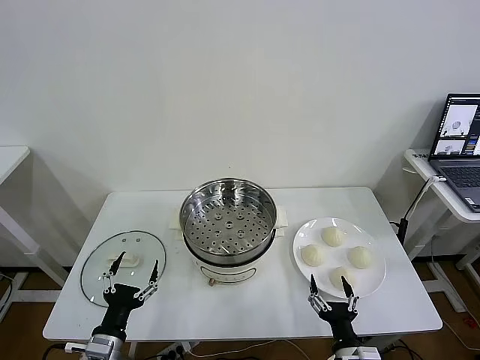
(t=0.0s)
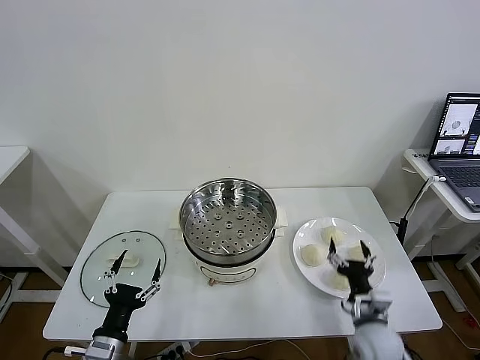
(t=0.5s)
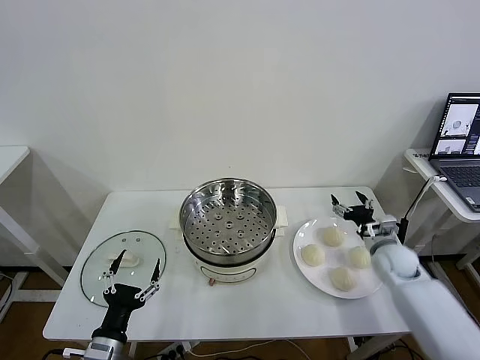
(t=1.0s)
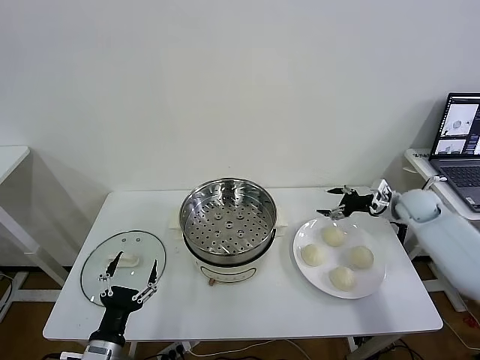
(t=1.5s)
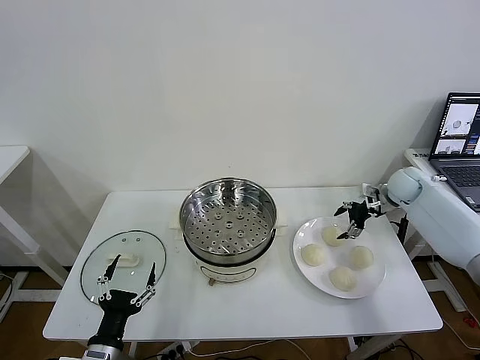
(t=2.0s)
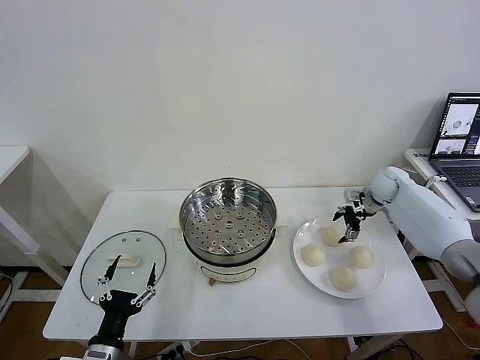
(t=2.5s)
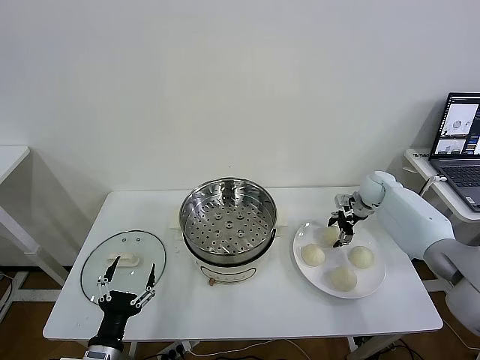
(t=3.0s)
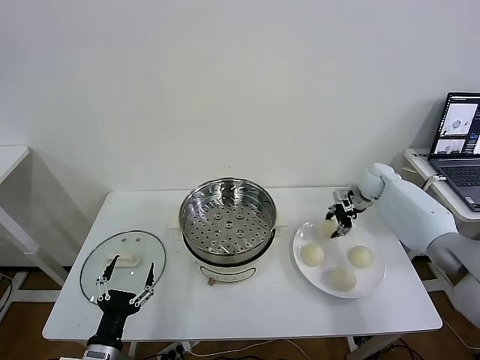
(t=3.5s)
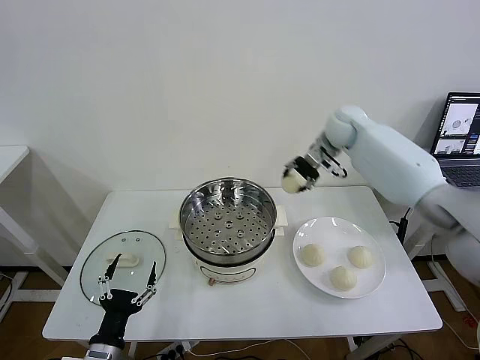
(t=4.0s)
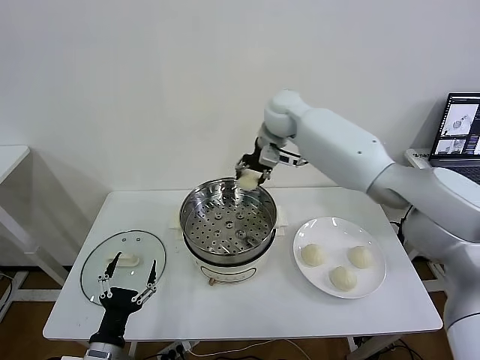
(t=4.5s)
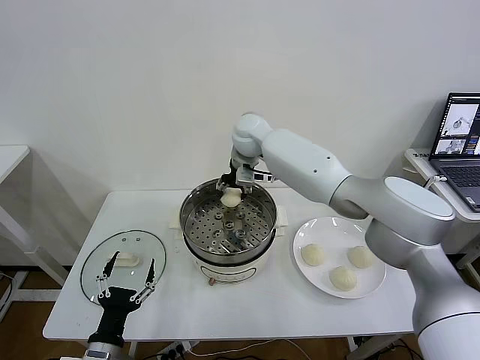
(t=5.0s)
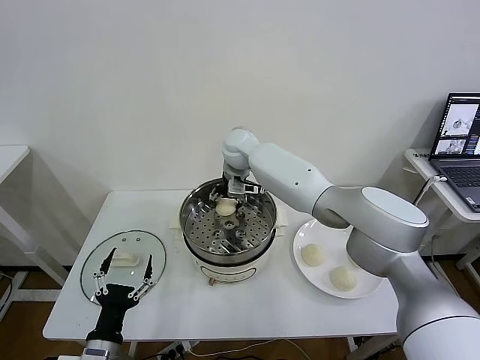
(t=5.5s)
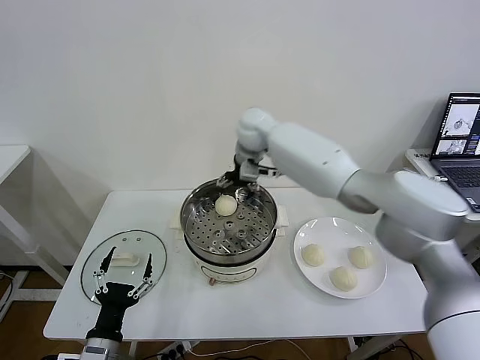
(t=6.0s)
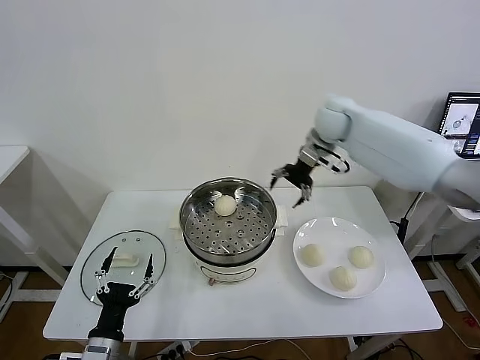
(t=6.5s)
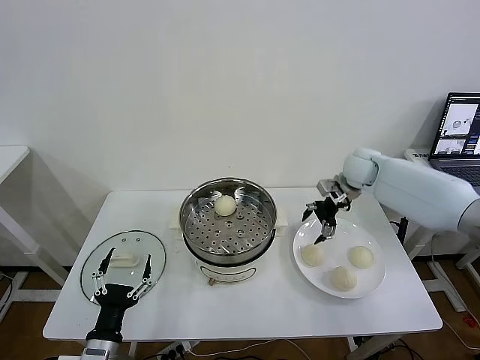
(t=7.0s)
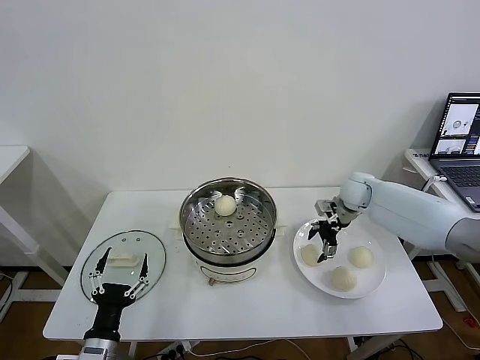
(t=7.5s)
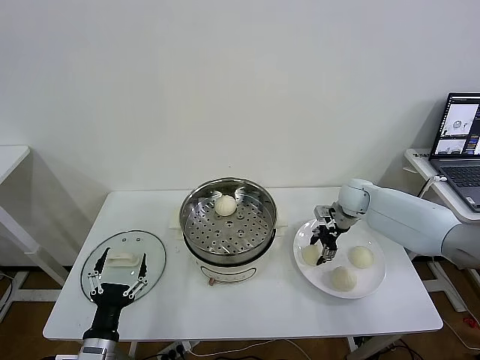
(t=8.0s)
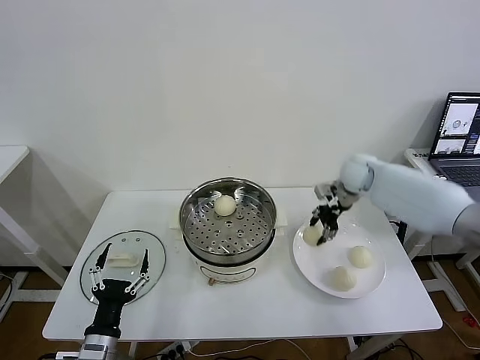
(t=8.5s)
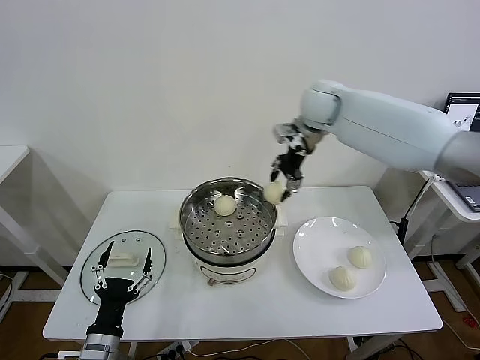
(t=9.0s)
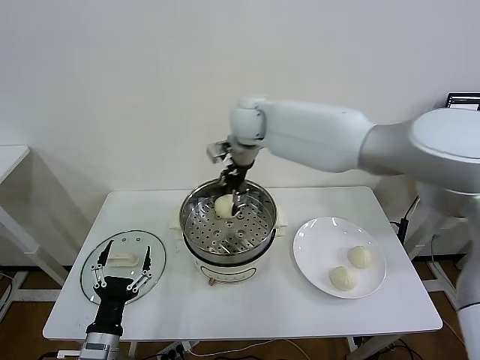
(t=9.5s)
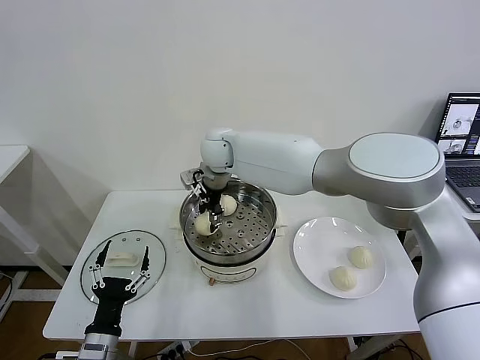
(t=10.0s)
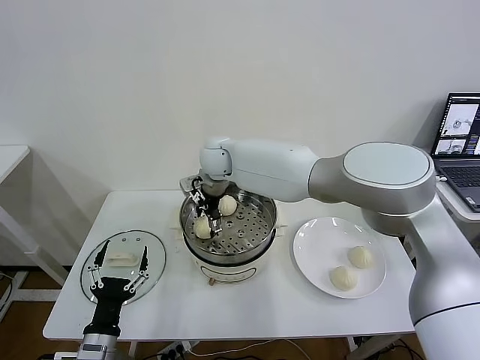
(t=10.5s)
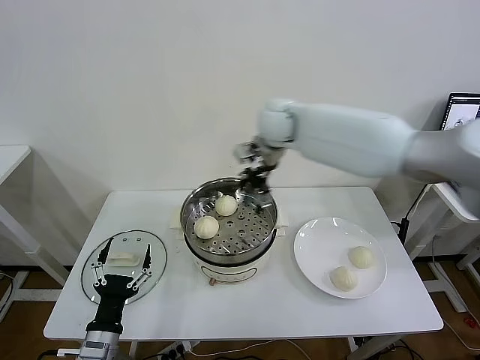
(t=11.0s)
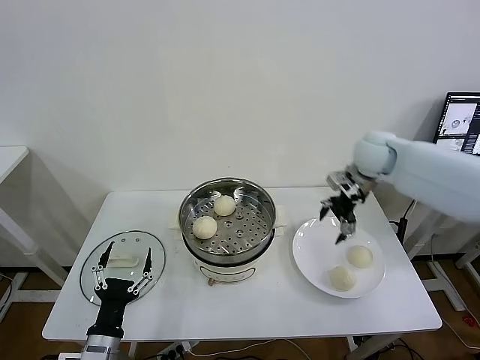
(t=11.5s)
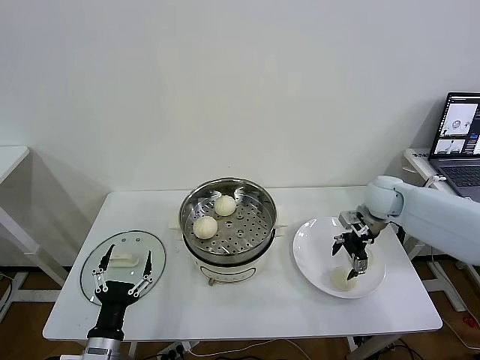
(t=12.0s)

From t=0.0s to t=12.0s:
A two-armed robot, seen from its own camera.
Task of the whole recording: take steamed baozi put them in steamer then cover it.
Step, from t=0.0s to t=3.0s: Grasp the baozi in the plate with right gripper.
Step, from t=3.5s to t=5.5s: Place the baozi on the steamer with right gripper.
Step, from t=6.0s to t=8.0s: Grasp the baozi in the plate with right gripper.
Step, from t=8.5s to t=10.5s: Place the baozi on the steamer with right gripper.
From t=2.0s to t=4.0s: The right gripper shifts roughly 25 cm to the left and upward, and closes its fingers.
From t=4.0s to t=6.0s: The right gripper is displaced to the left by roughly 15 cm, and opens.
From t=6.0s to t=8.0s: The right gripper shifts roughly 30 cm to the right and downward, and closes up.
From t=8.0s to t=10.0s: The right gripper goes roughly 40 cm to the left and upward.
From t=10.0s to t=12.0s: The right gripper travels to the right by some 40 cm, and opens.

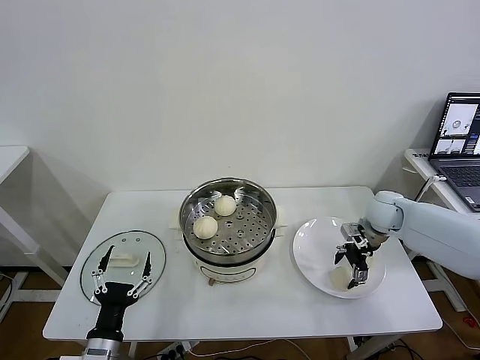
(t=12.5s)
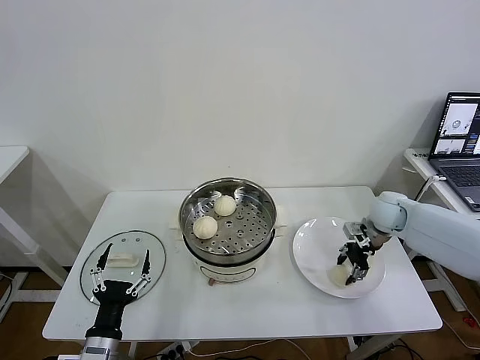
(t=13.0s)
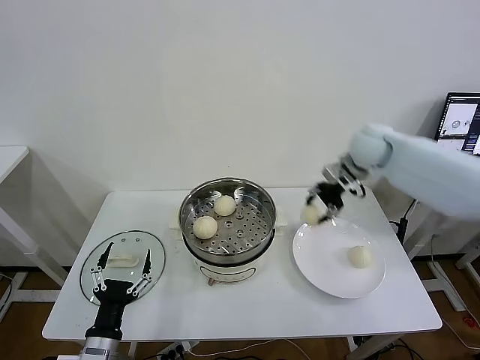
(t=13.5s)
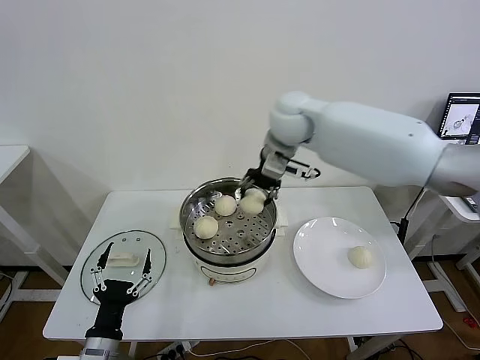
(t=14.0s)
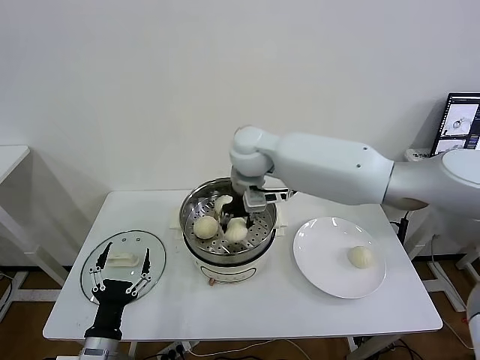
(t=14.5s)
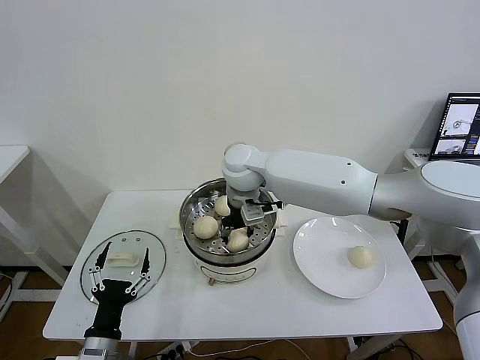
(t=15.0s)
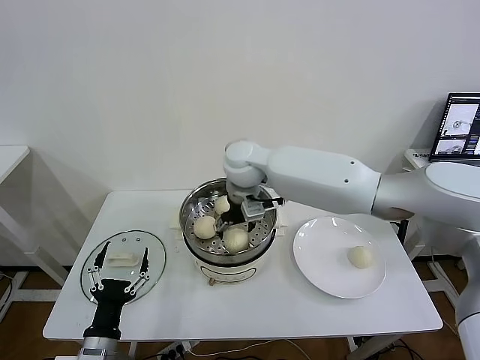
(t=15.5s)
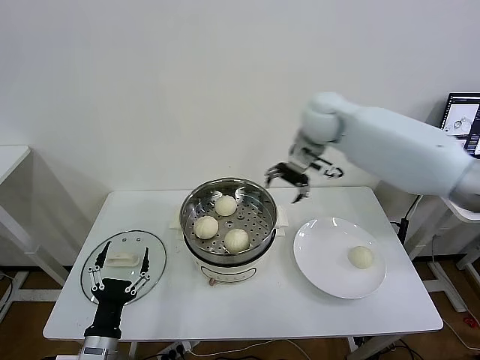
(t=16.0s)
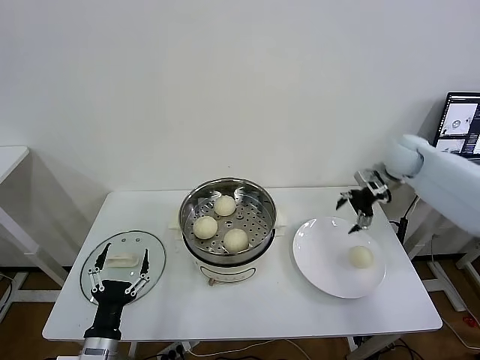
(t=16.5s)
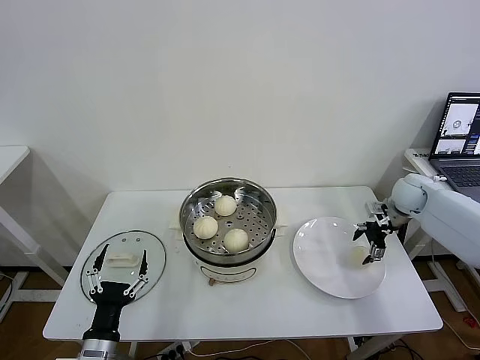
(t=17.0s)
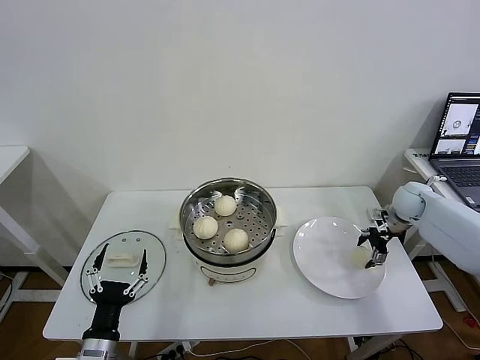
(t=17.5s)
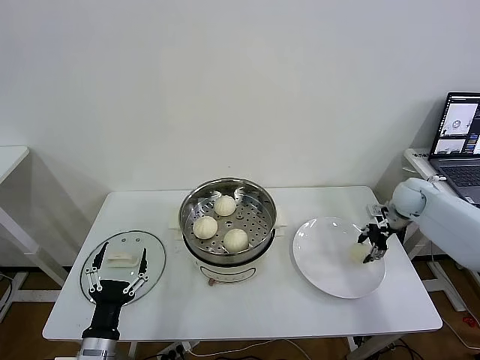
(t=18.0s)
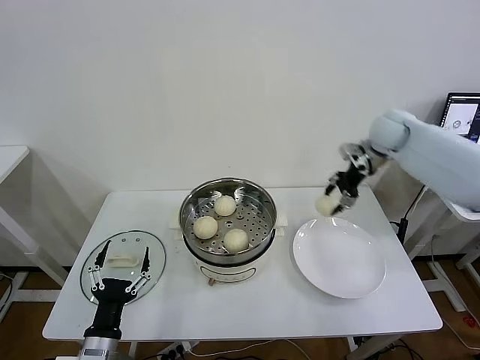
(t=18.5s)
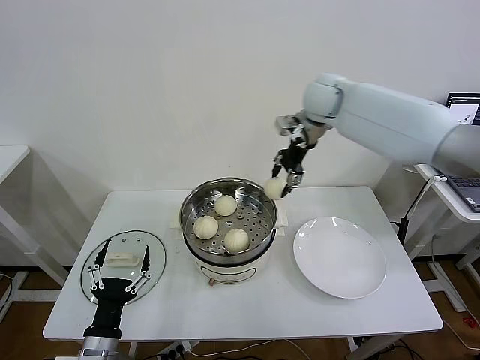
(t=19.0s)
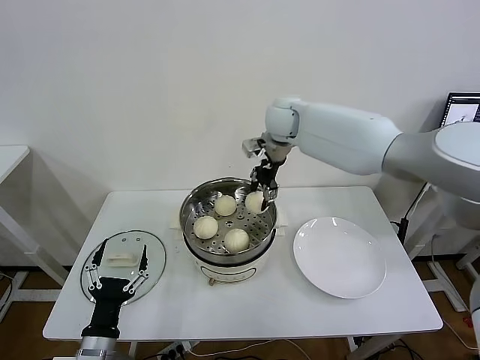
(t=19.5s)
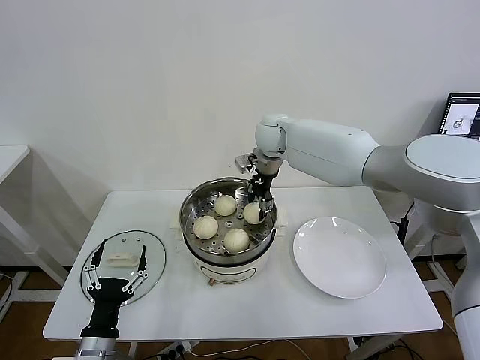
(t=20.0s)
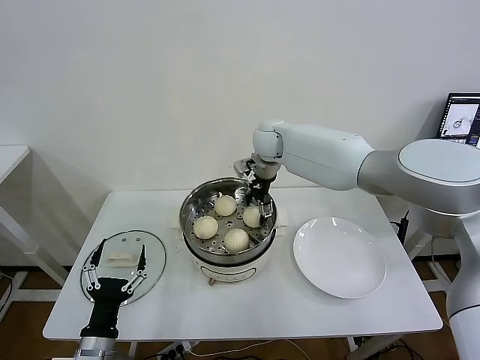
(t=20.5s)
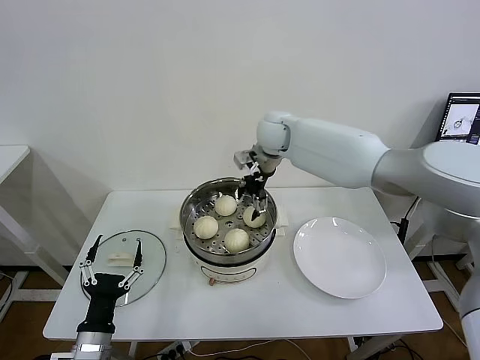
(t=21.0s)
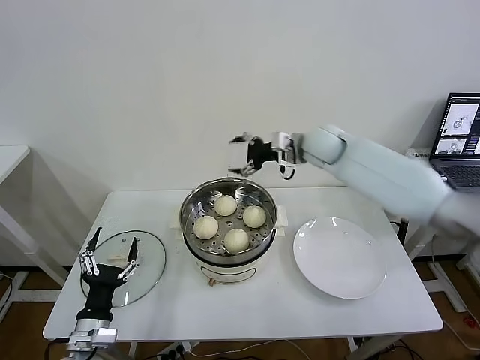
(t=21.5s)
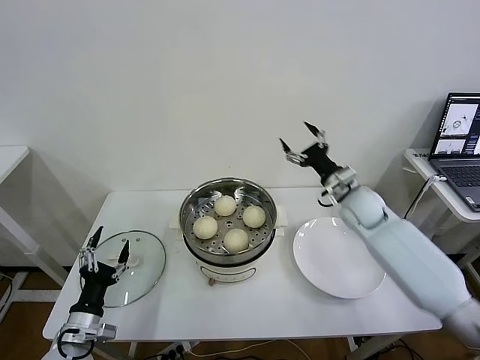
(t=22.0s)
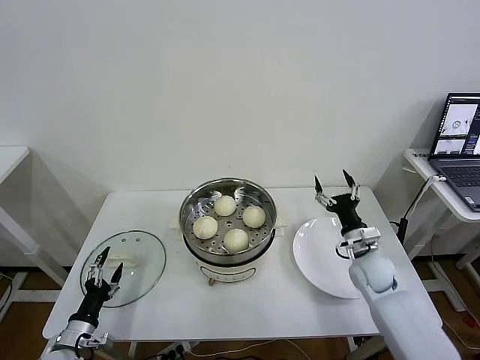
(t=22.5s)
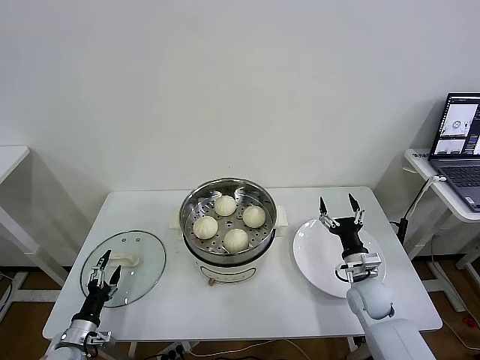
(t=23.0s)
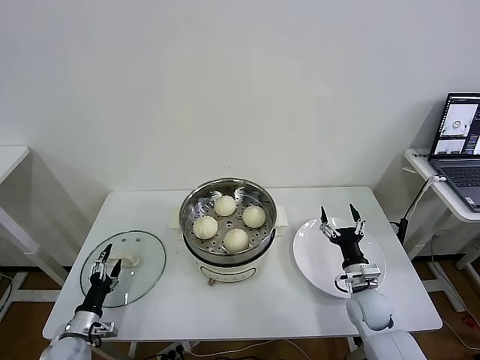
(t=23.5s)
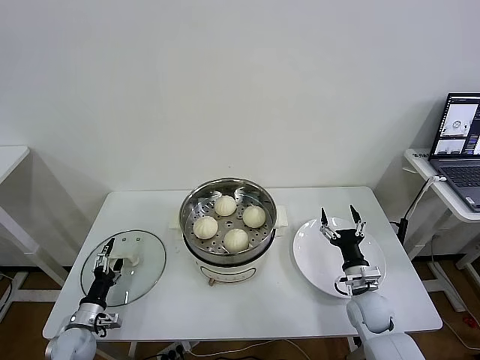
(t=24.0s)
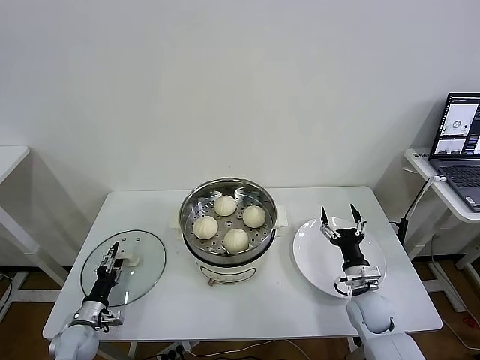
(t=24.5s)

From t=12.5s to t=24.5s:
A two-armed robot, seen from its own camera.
Task of the whole recording: take steamed baozi put them in steamer then cover it.
Step, from t=13.0s to t=15.0s: Place the baozi on the steamer with right gripper.
Step, from t=15.5s to t=17.5s: Grasp the baozi in the plate with right gripper.
Step, from t=18.0s to t=20.5s: Place the baozi on the steamer with right gripper.
From t=12.5s to t=14.5s: The right gripper travels to the left and upward by roughly 40 cm, and closes.
From t=14.5s to t=16.5s: The right gripper is displaced to the right by about 40 cm, and opens.
From t=16.5s to t=18.5s: The right gripper moves upward and to the left, roughly 10 cm, and closes up.
From t=18.5s to t=20.5s: The right gripper shifts about 25 cm to the left, and opens.
From t=20.5s to t=22.5s: The left gripper is displaced to the left, downward and forward by approximately 15 cm, while the right gripper travels to the right, downward and backward by approximately 40 cm.
From t=22.5s to t=24.5s: The left gripper heads forward and downward, covering roughly 10 cm, and closes up; the right gripper goes roughly 10 cm backward and downward.

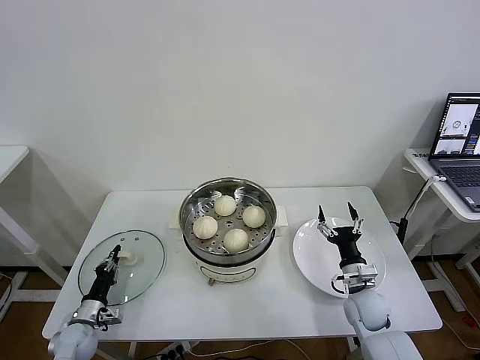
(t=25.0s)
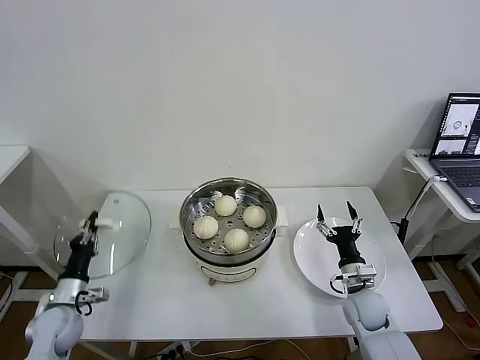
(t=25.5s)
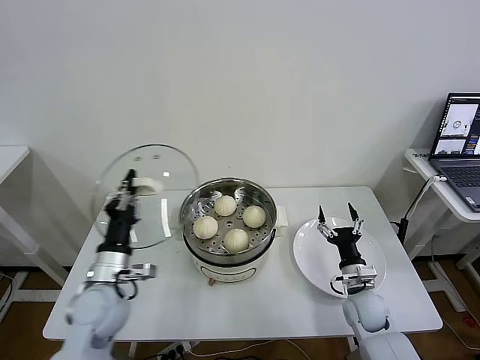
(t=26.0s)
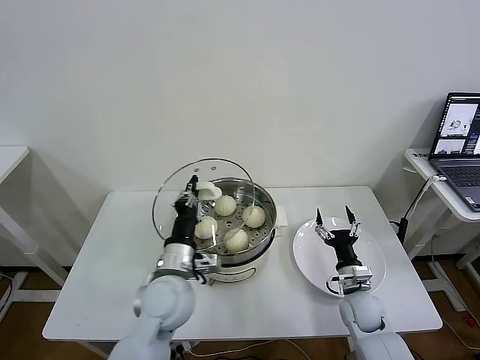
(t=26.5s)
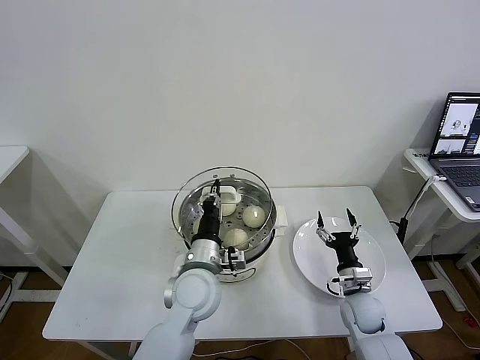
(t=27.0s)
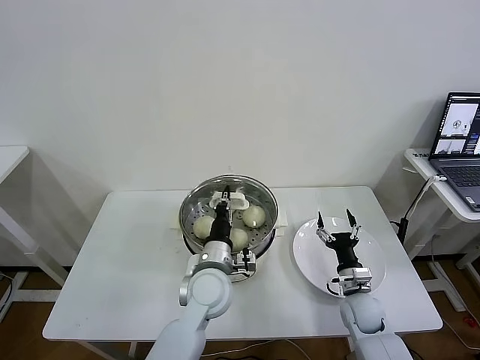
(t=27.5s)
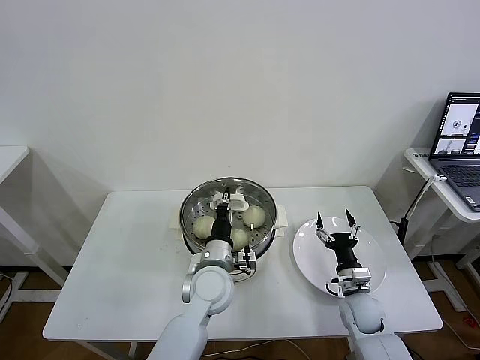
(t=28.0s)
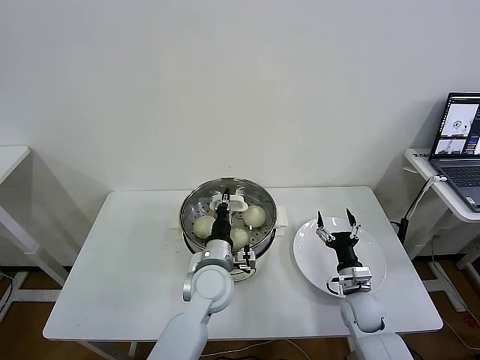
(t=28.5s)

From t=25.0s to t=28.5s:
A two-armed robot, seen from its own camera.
Task of the whole recording: take steamed baozi put them in steamer then cover it.
From t=25.0s to t=27.0s: The left gripper moves to the right and upward, about 40 cm.
From t=27.0s to t=28.5s: The left gripper moves roughly 5 cm.
